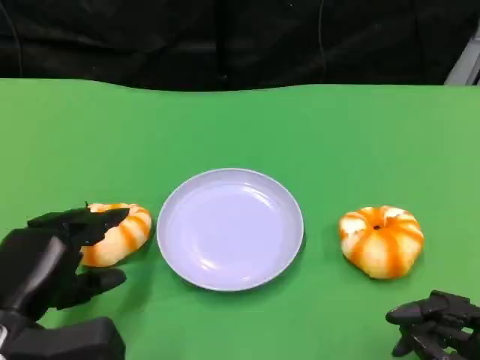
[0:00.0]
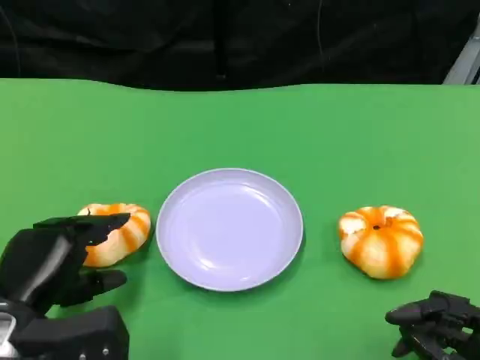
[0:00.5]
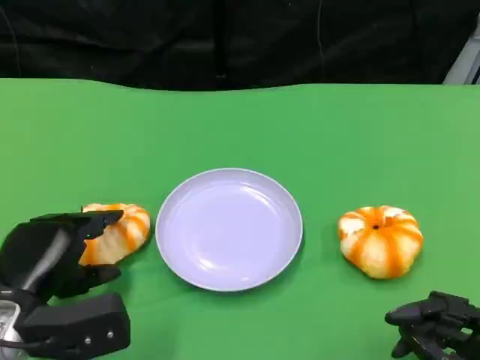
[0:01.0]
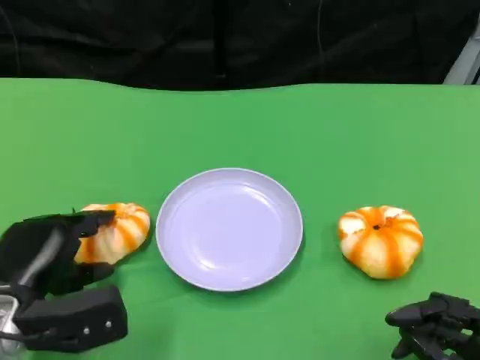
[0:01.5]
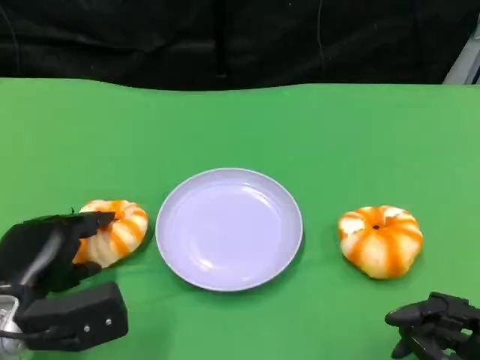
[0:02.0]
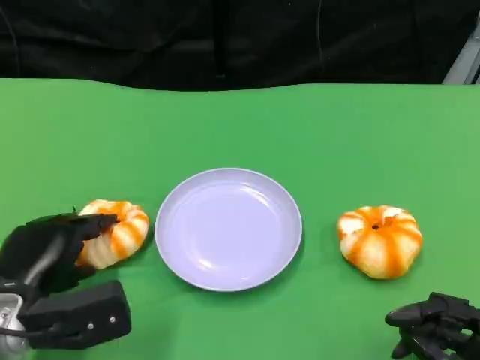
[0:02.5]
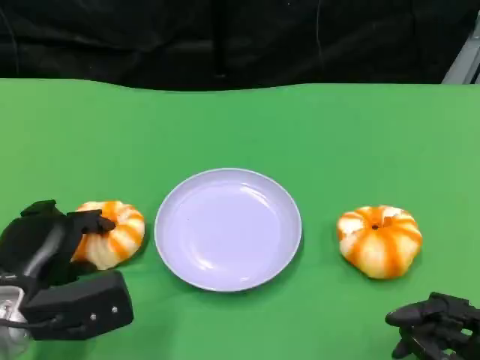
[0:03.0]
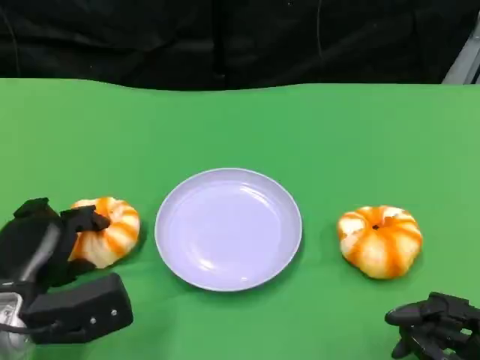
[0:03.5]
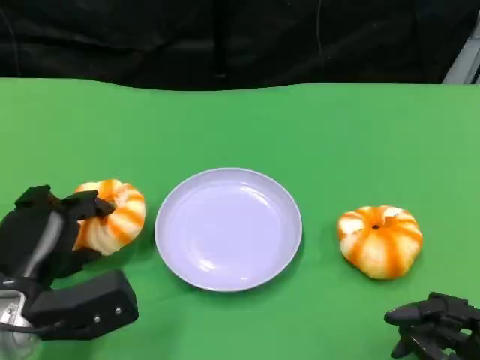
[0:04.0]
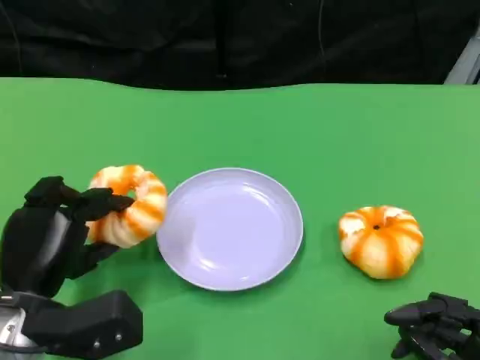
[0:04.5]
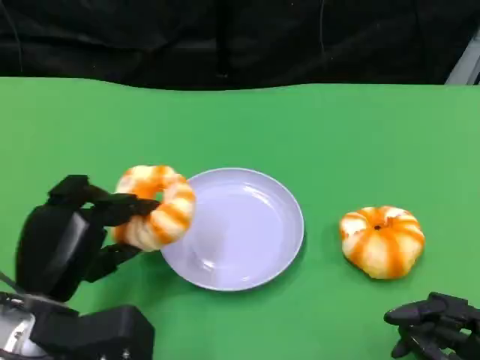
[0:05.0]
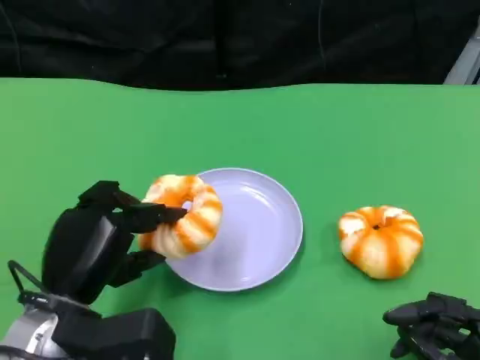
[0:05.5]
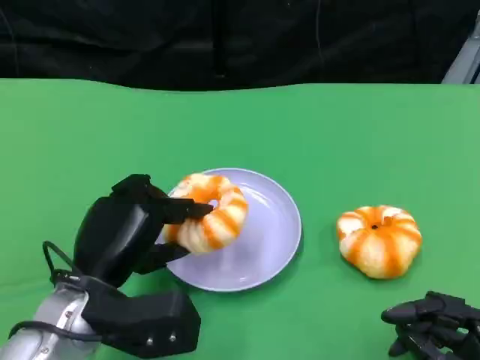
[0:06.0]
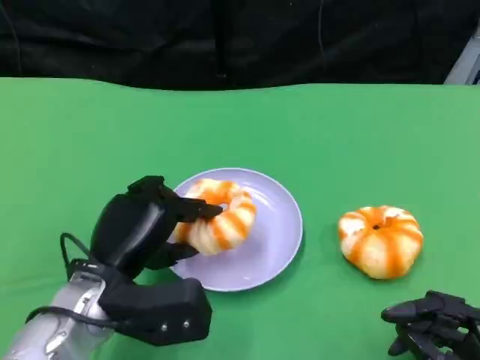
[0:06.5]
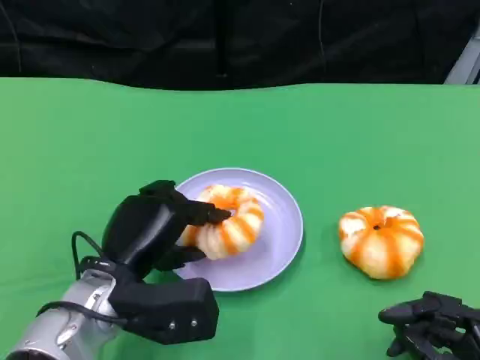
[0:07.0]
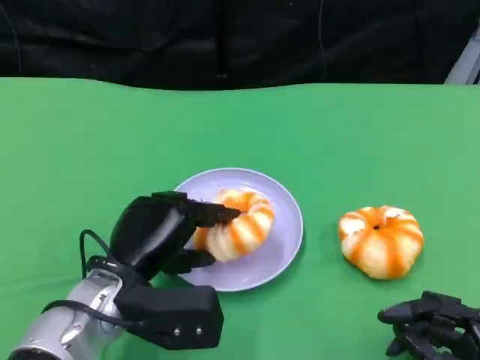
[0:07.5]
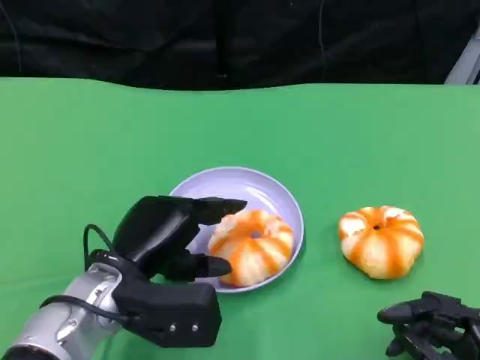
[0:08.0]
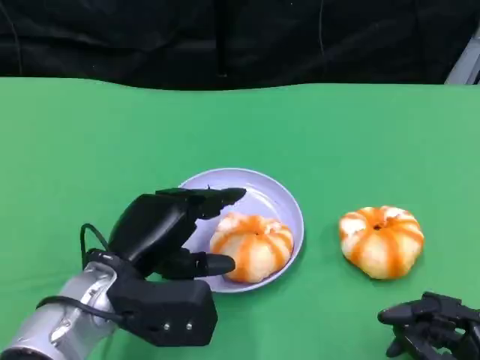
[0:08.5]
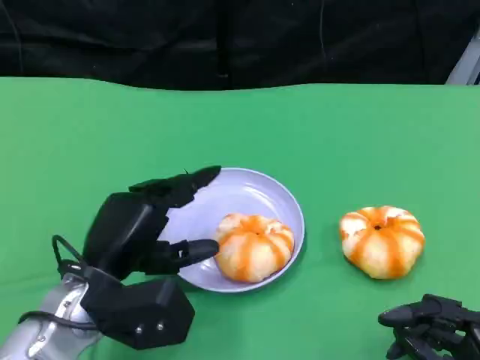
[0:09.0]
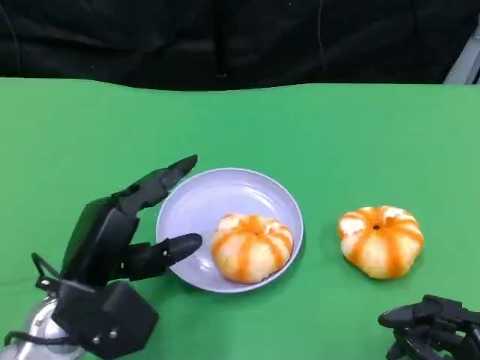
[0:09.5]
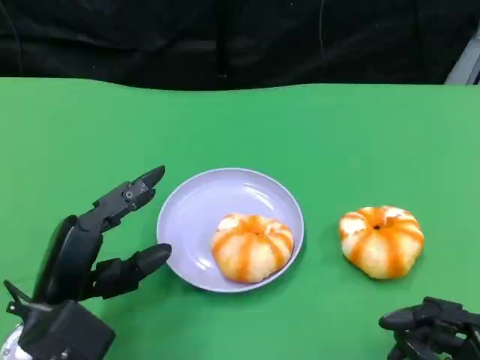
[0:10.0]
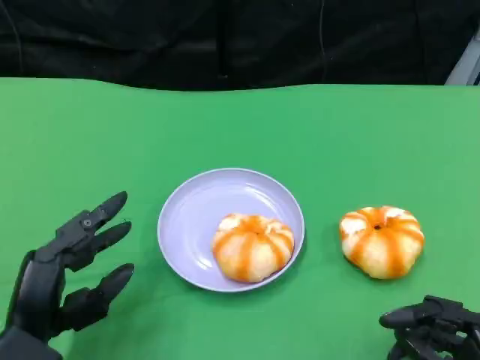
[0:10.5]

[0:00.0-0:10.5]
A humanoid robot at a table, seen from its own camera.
Task of the whole recording: Grasp the bread from the table and place it into the plate.
0:00.0 to 0:04.0: There are only small adjustments of the hands.
0:04.0 to 0:06.5: The left hand travels to the right by roughly 10 cm.
0:06.5 to 0:08.5: The hands move only a little.
0:08.5 to 0:10.5: The left hand heads to the left and backward, covering approximately 10 cm.

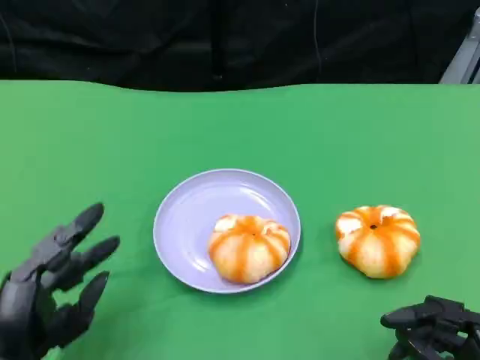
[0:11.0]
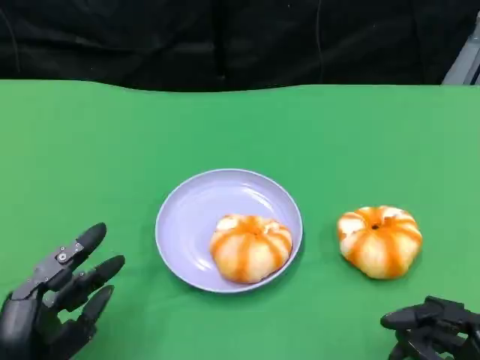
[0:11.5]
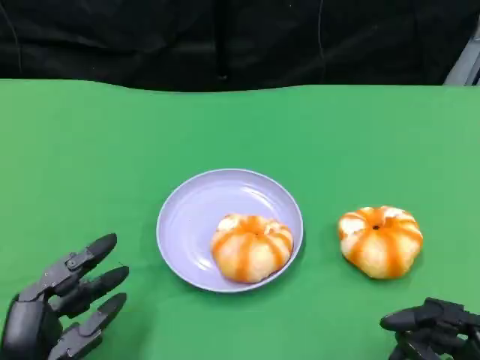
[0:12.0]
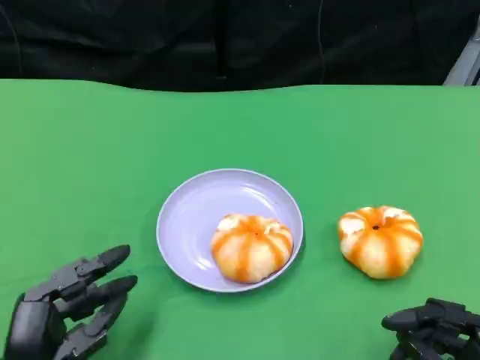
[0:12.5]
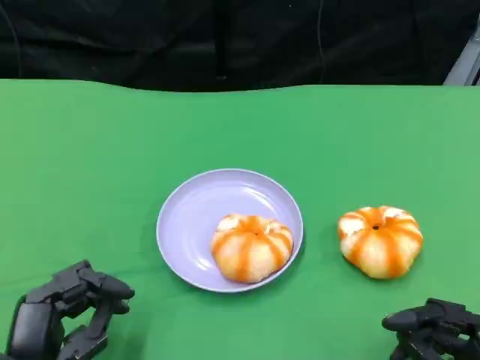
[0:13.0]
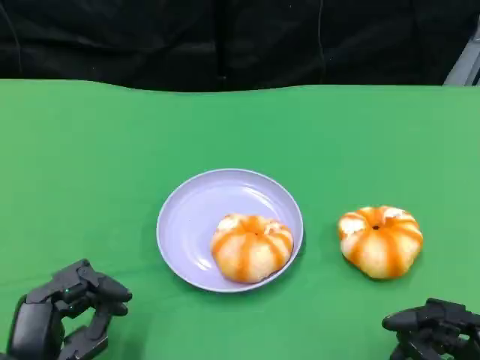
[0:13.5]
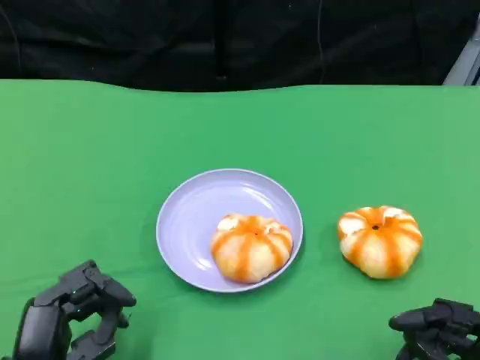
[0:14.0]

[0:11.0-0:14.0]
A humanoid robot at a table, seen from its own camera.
Task of the whole recording: Grasp the bread from the table and place it into the plate.
0:11.0 to 0:12.5: The hands make only small movements.
0:12.5 to 0:14.0: The two hands keep their place.

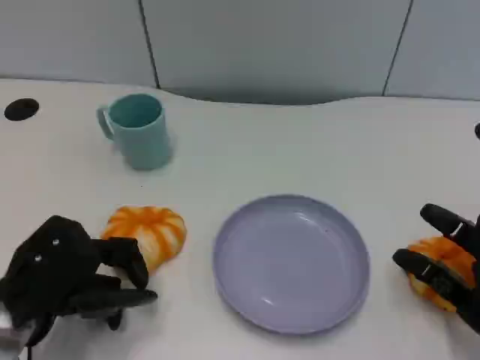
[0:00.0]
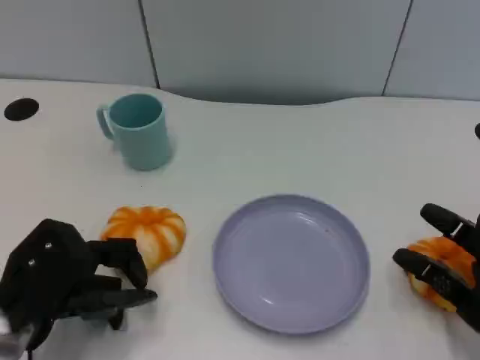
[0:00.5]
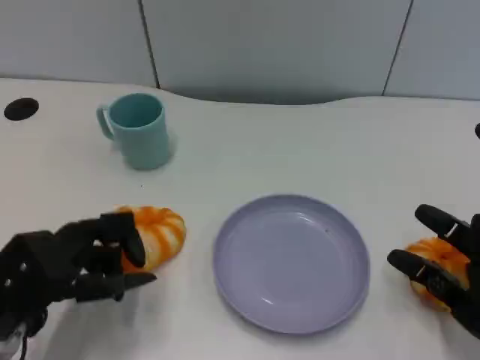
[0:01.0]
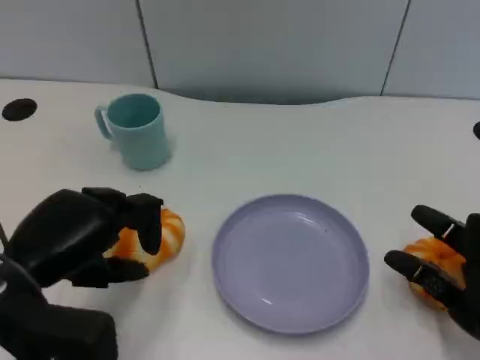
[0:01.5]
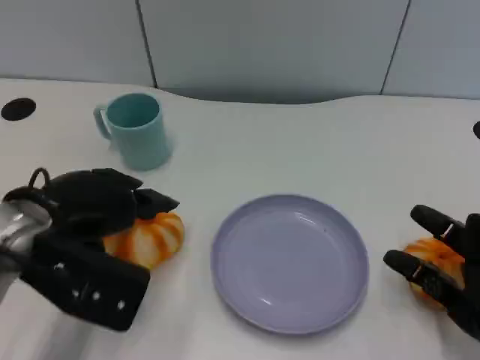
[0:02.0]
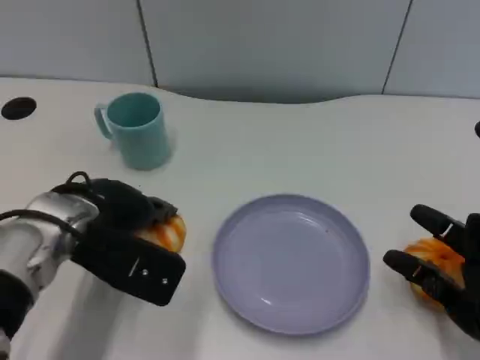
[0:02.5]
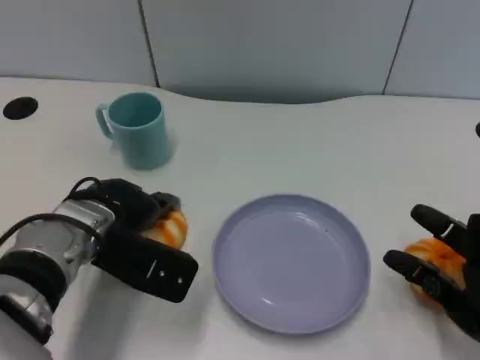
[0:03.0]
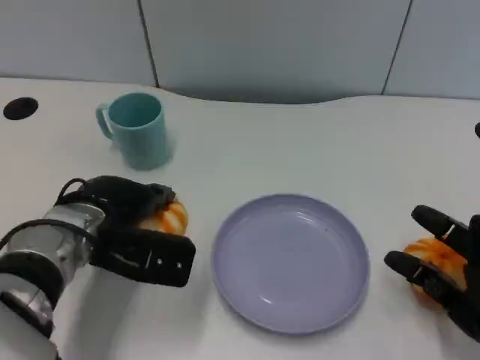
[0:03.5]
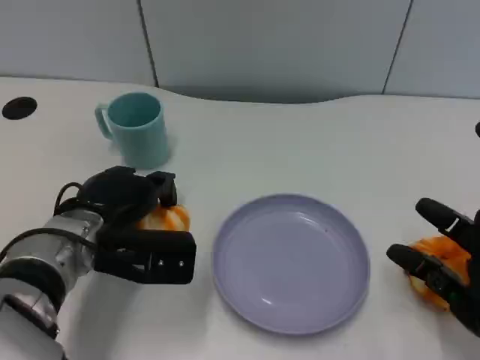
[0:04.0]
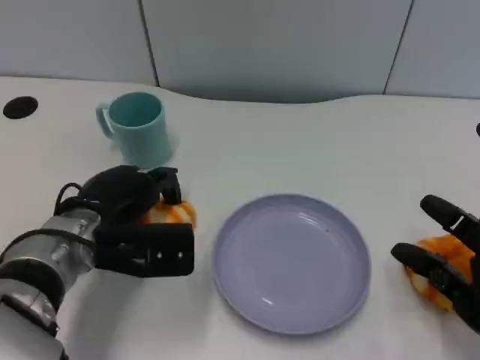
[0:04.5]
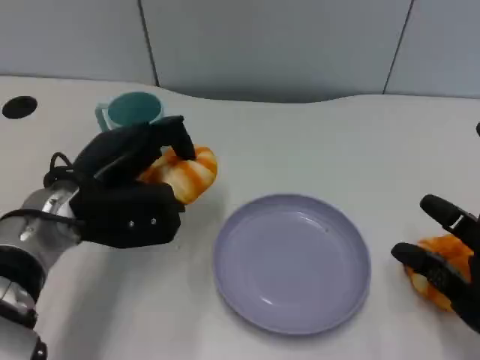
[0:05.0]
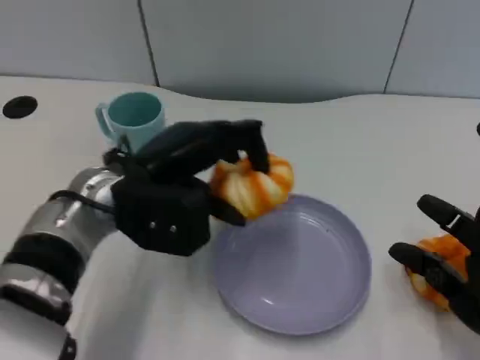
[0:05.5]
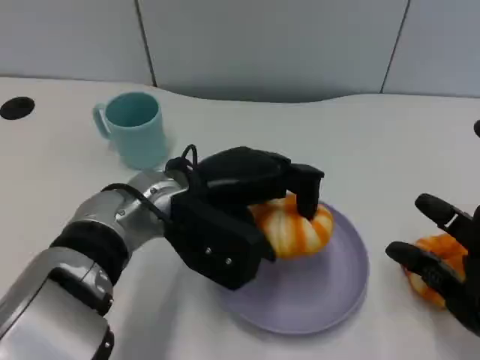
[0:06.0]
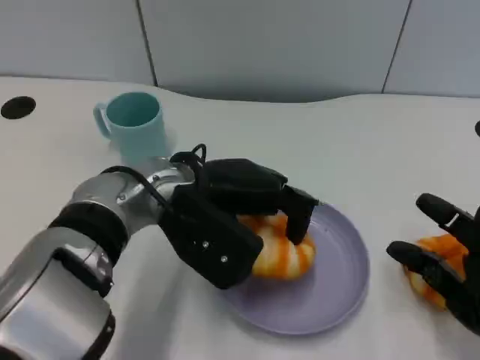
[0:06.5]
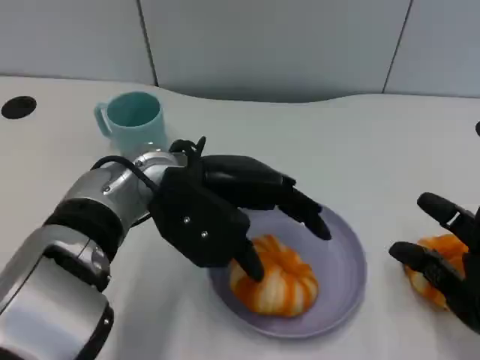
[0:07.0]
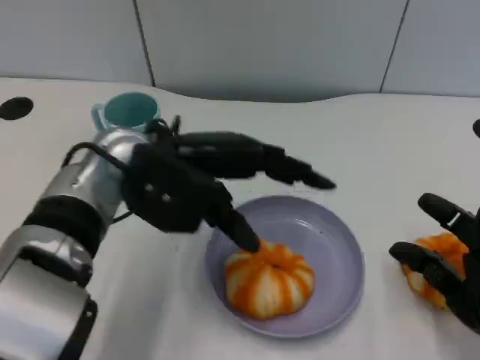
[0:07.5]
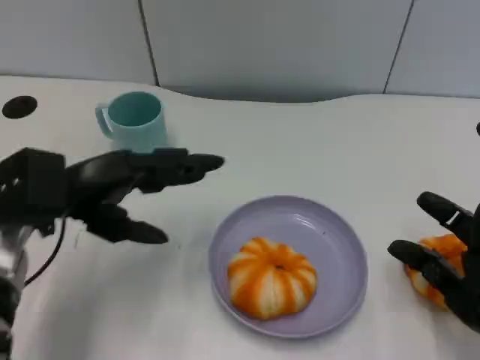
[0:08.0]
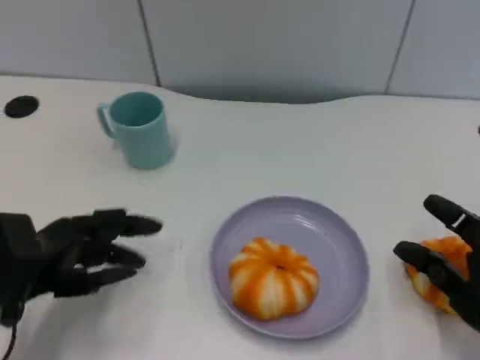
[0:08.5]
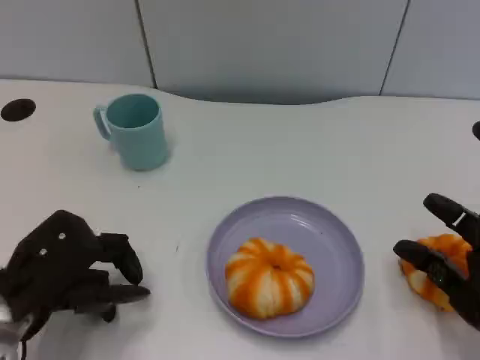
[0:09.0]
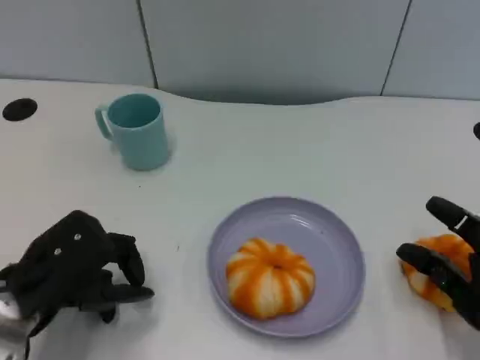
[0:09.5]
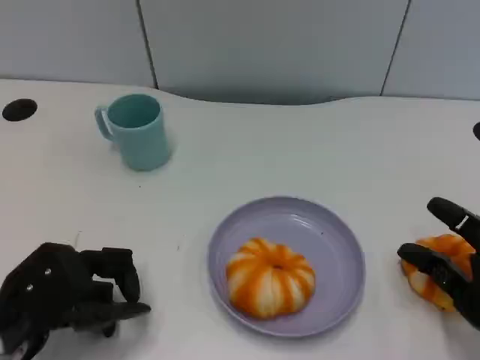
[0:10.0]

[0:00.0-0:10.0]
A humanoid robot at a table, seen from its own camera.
Task of the whole recording: Grasp the bread from the table and place it into the plate.
0:00.0 to 0:02.0: The left hand moves upward, about 10 cm.
0:02.0 to 0:04.0: The left hand shifts about 10 cm downward.
0:04.0 to 0:06.0: The left hand shifts some 10 cm to the right and upward.
0:06.0 to 0:08.0: The left hand travels to the left by some 15 cm.
0:08.0 to 0:10.0: The left hand moves backward and downward, roughly 10 cm.

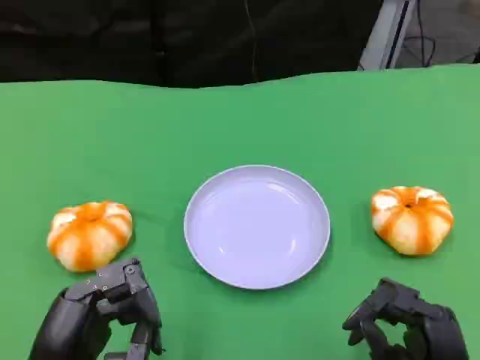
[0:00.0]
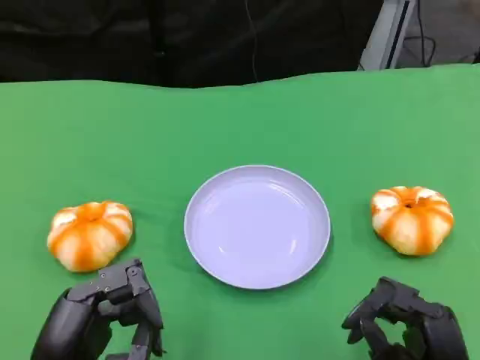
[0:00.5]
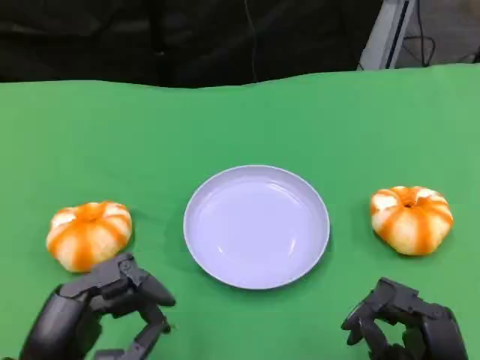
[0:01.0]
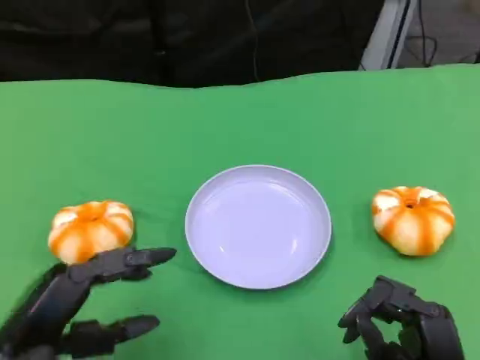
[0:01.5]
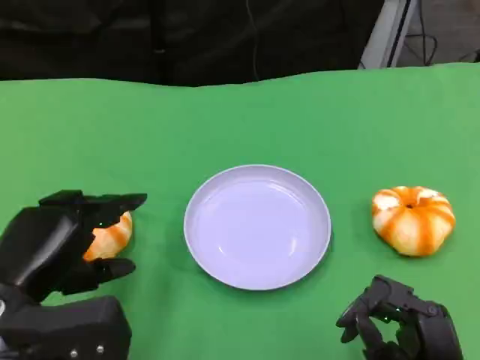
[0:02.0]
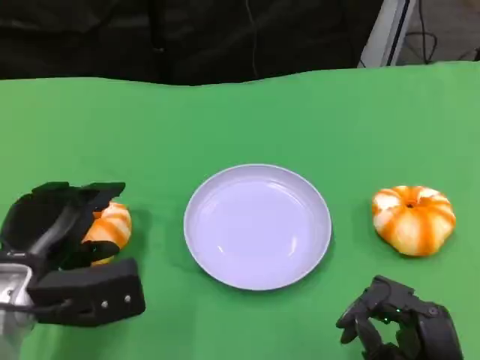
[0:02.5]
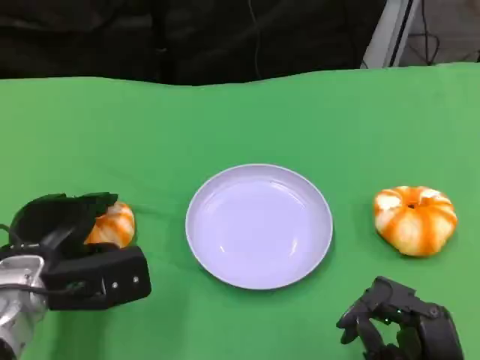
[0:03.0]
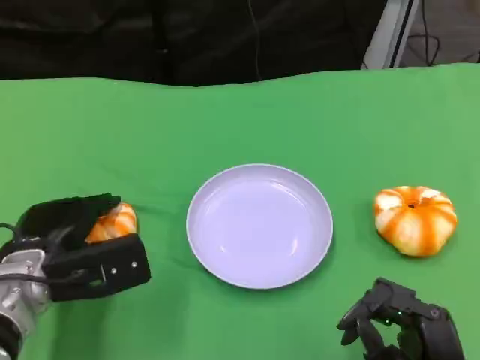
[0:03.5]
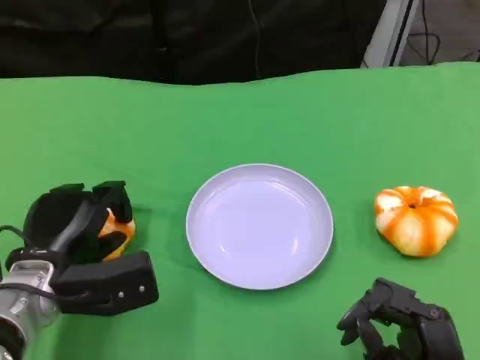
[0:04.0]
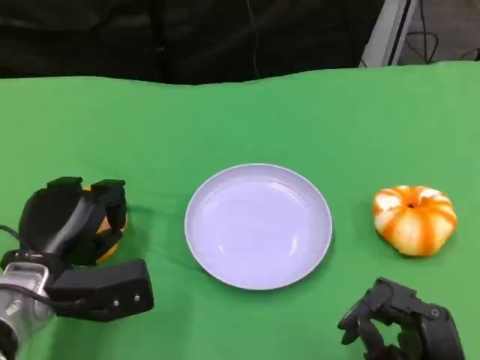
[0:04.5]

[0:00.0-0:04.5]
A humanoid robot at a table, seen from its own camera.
Task of the whole recording: Grasp the bread from the table and place it into the plate.
0:00.0 to 0:02.0: The left hand goes roughly 5 cm forward.
0:02.0 to 0:04.5: The left hand moves forward and downward, approximately 10 cm.
